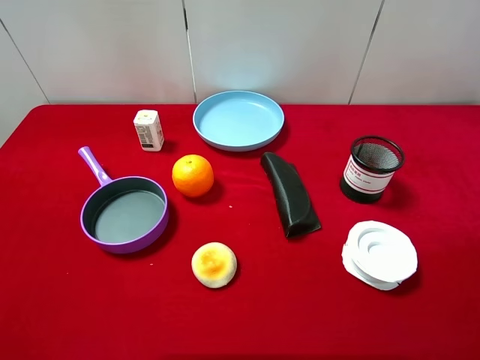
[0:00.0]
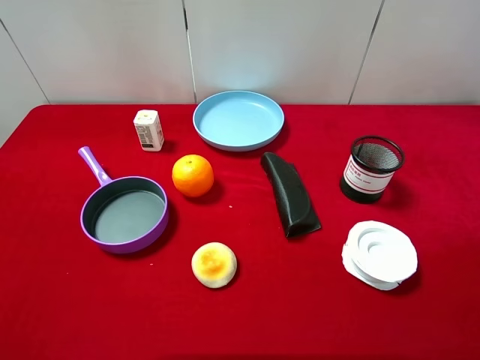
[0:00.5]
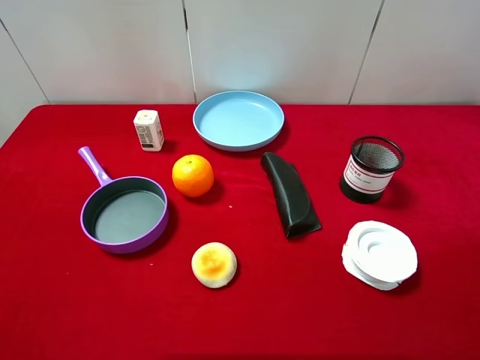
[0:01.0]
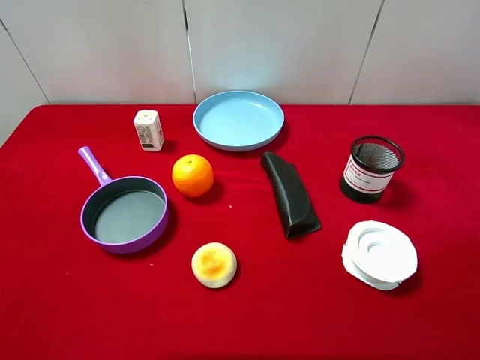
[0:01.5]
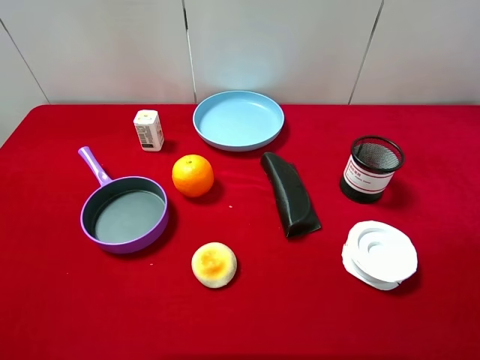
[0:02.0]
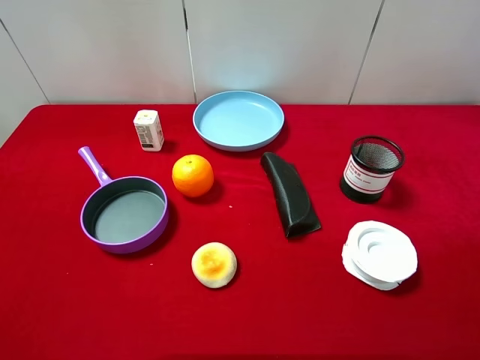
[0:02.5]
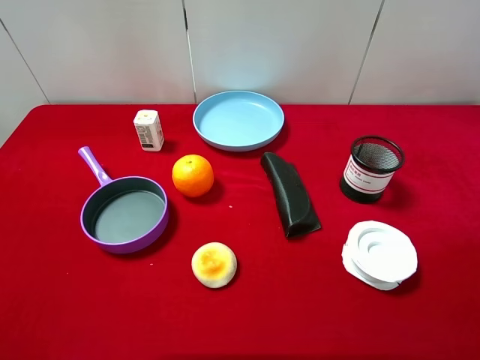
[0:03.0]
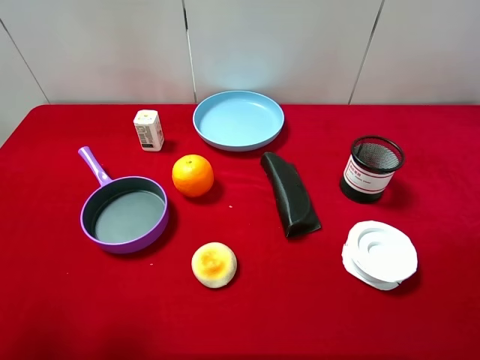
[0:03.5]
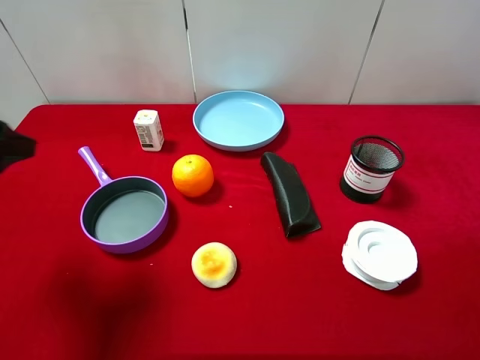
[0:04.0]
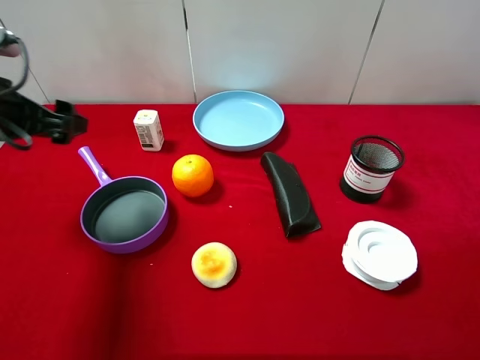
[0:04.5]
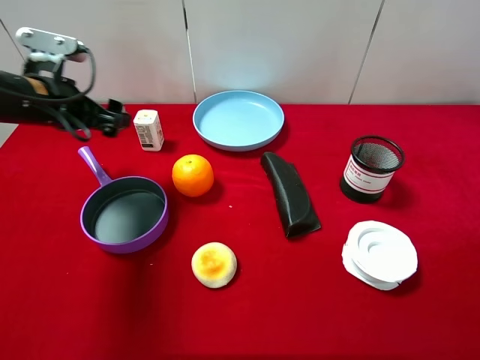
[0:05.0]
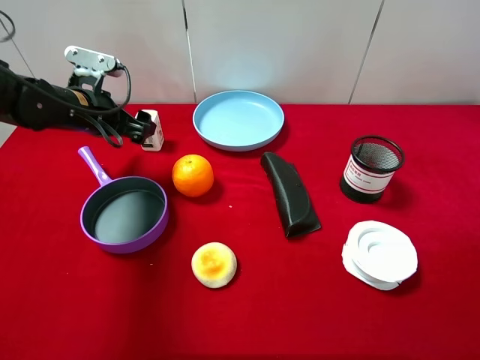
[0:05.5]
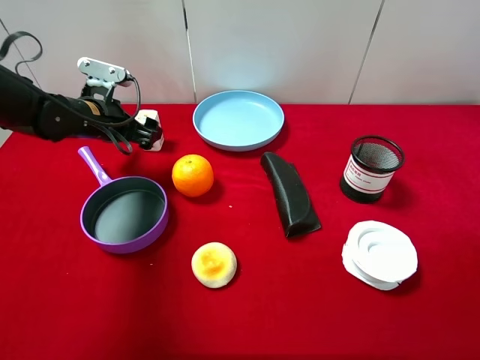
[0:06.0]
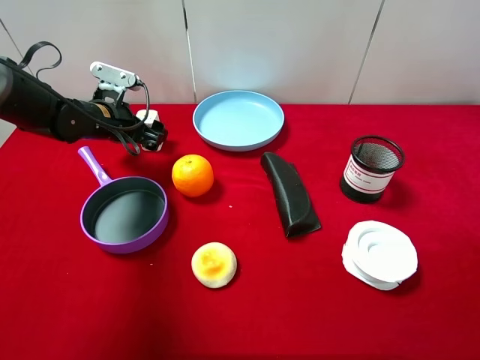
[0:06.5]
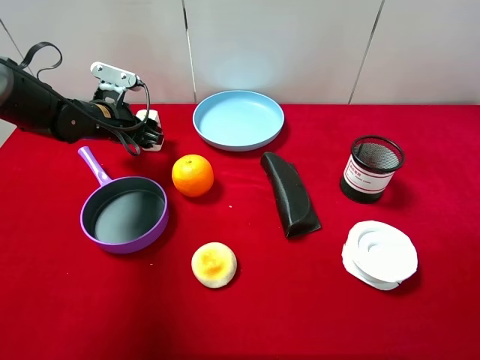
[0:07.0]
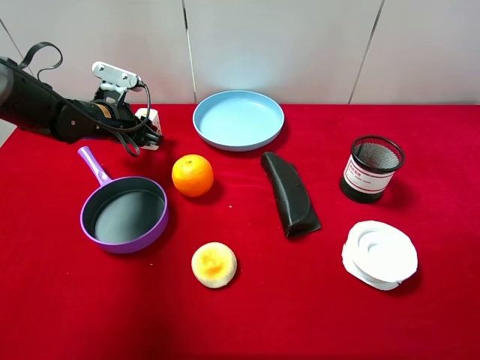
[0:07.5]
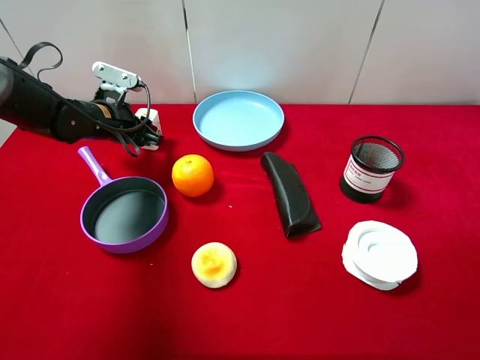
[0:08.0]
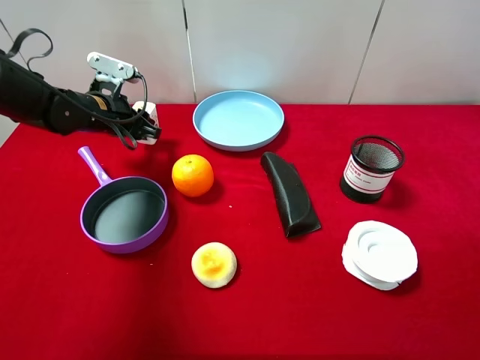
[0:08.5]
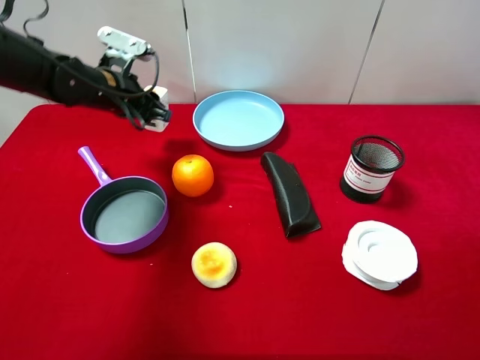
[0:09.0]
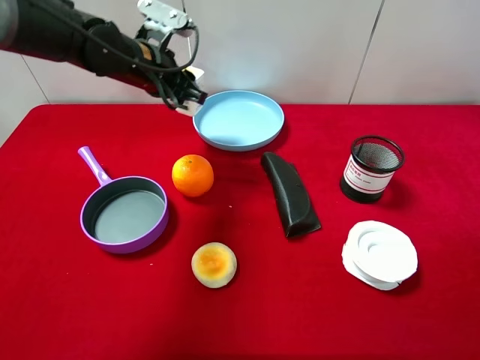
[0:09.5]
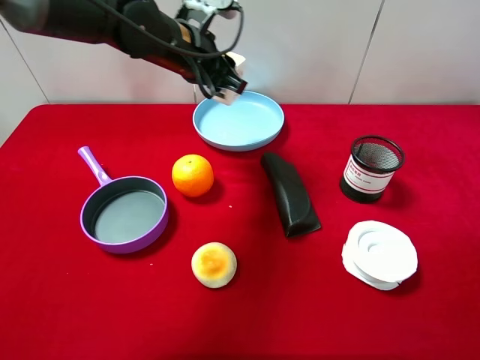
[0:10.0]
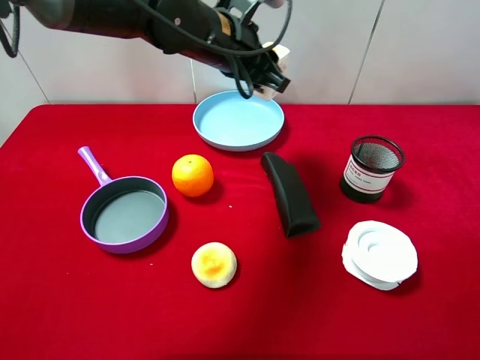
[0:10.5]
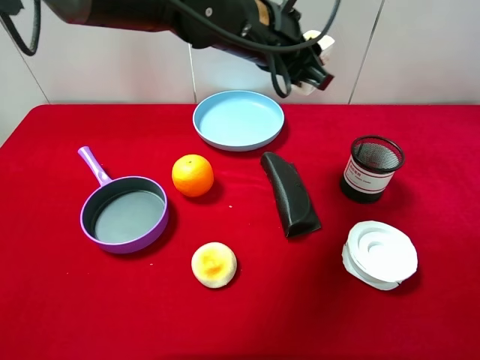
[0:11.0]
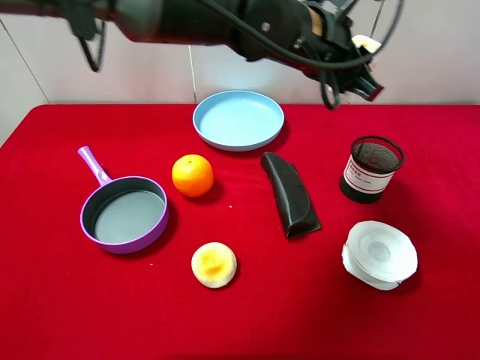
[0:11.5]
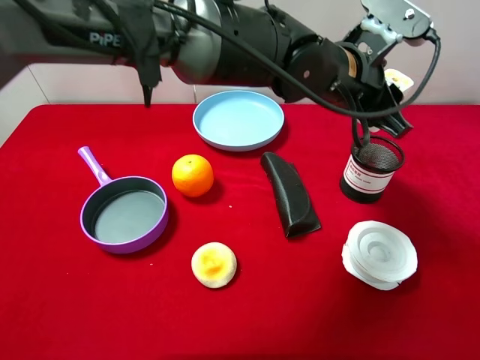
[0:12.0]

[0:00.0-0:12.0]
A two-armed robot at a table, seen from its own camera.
Task of the whole recording: pick up an item with a gripper and place it in a random container on the desktop.
0:02.0 to 0:04.0: The left gripper travels forward by approximately 15 cm.
0:04.0 to 0:06.0: The left gripper is displaced forward and downward by some 25 cm.
0:06.0 to 0:08.0: The left gripper closes its fingers.
0:08.0 to 0:10.0: The left gripper moves to the right and upward, some 20 cm.
0:10.0 to 0:12.0: The left gripper moves to the right and backward, roughly 20 cm.

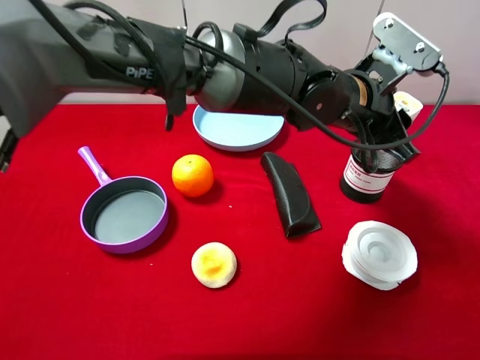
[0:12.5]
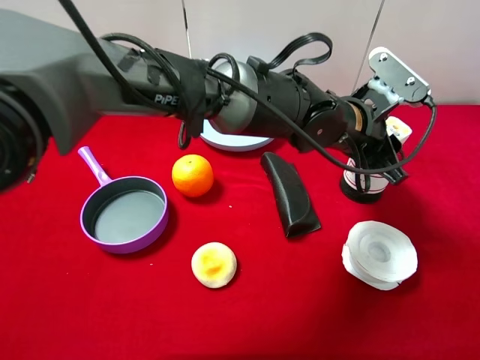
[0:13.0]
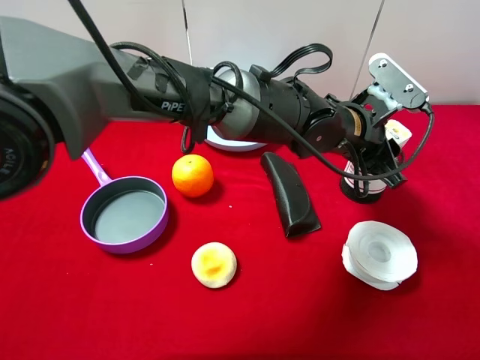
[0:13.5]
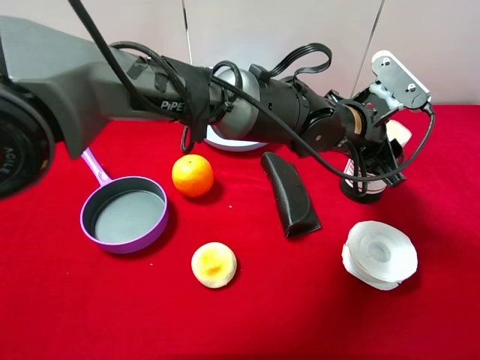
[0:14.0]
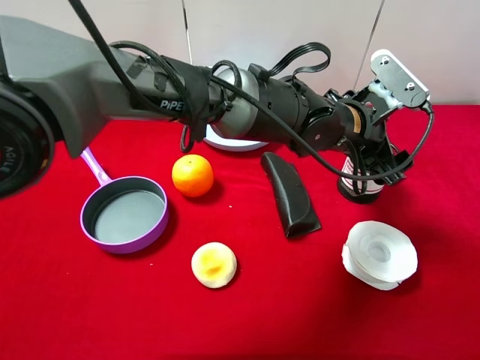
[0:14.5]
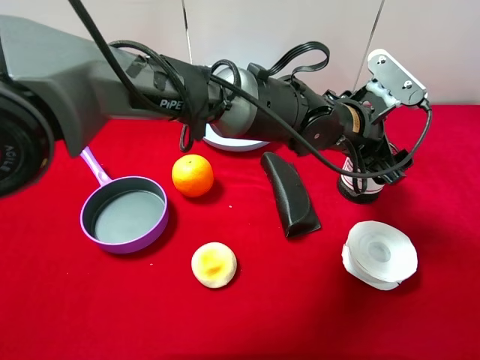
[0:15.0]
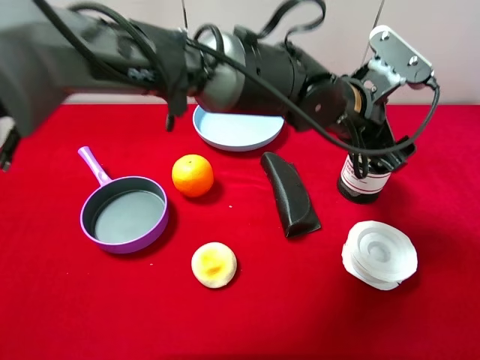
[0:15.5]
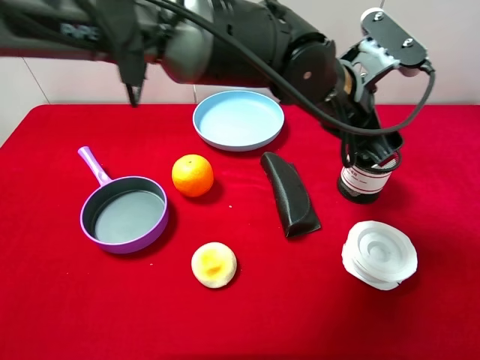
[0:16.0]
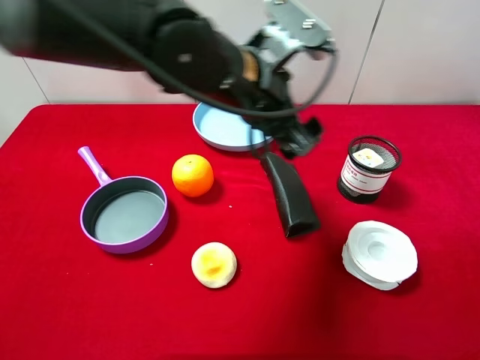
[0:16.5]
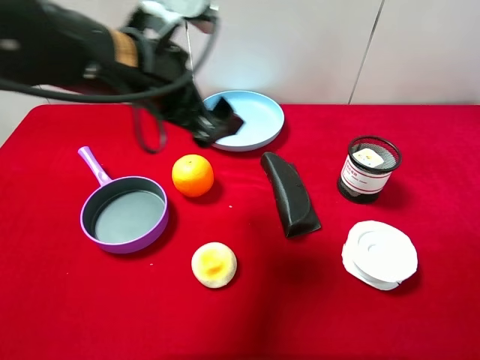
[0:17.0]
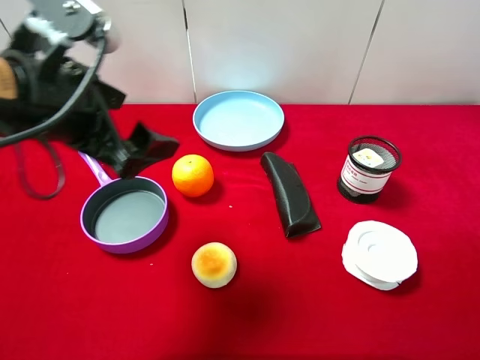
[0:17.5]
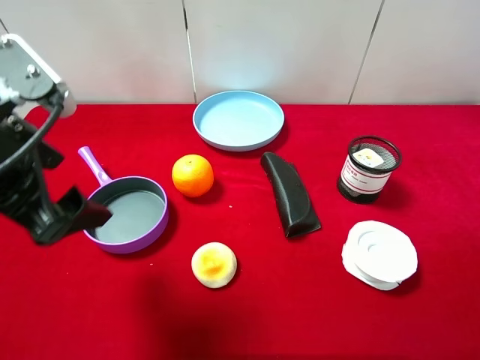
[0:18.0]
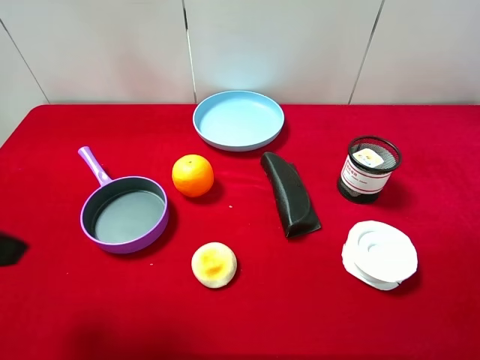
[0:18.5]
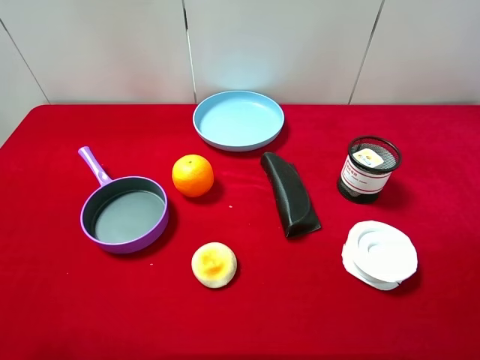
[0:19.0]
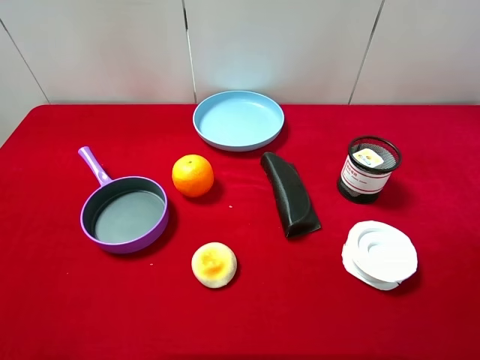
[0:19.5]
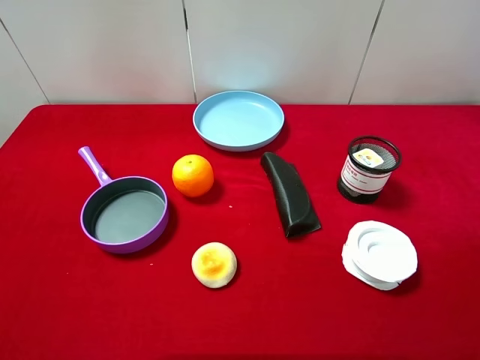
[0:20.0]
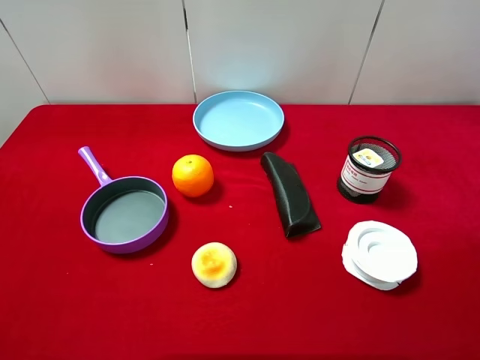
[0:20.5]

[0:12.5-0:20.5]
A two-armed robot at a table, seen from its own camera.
Task of the whole recording: pick up an item with a gripper and place it in a random container on the desktop.
0:12.5 to 0:14.5: The left gripper opens its fingers.
0:14.5 to 0:16.5: The left gripper is displaced to the left and upward by roughly 15 cm.
0:16.5 to 0:18.5: The left gripper travels to the left and backward by about 30 cm.
0:18.5 to 0:20.5: The left gripper goes roughly 15 cm backward and to the left.

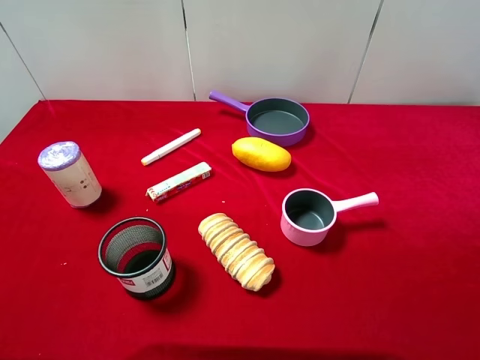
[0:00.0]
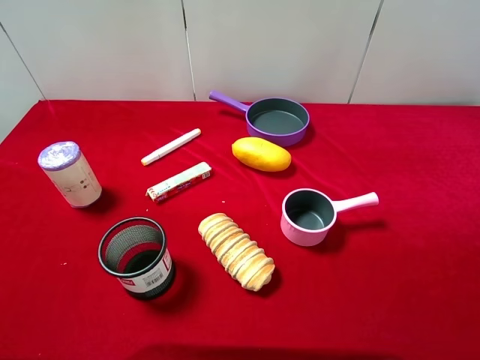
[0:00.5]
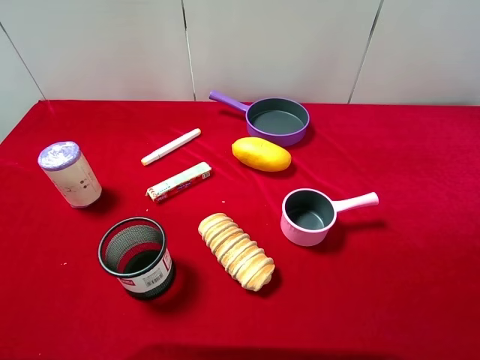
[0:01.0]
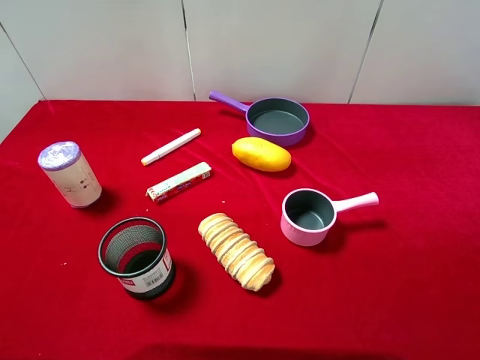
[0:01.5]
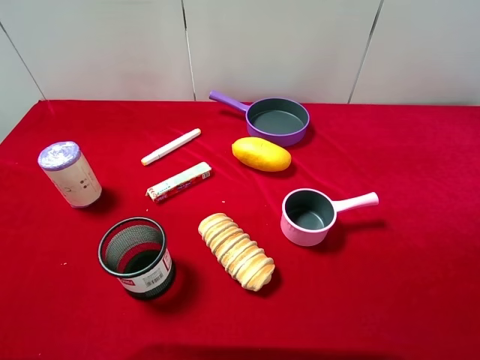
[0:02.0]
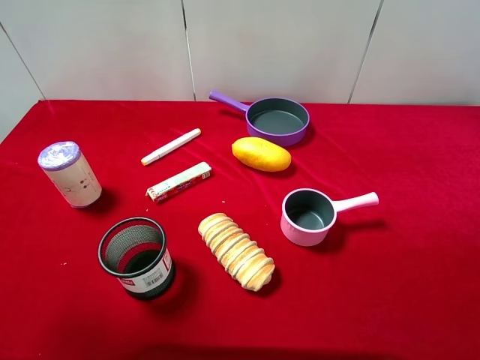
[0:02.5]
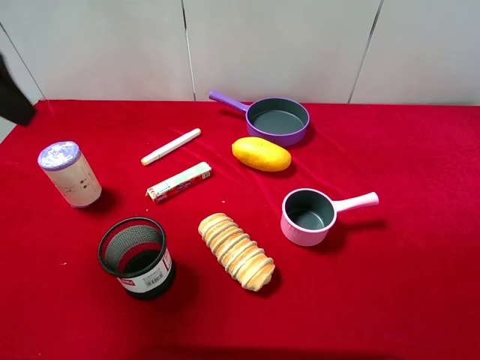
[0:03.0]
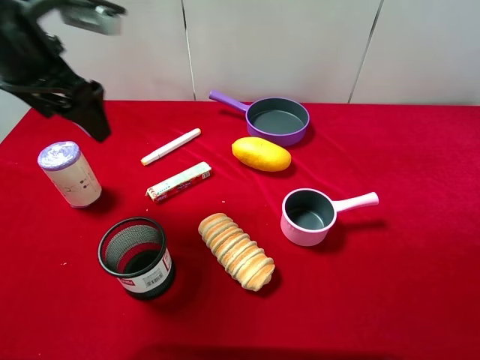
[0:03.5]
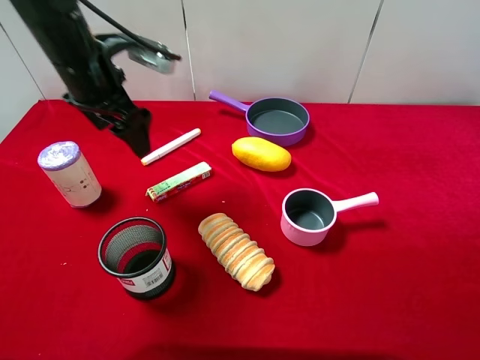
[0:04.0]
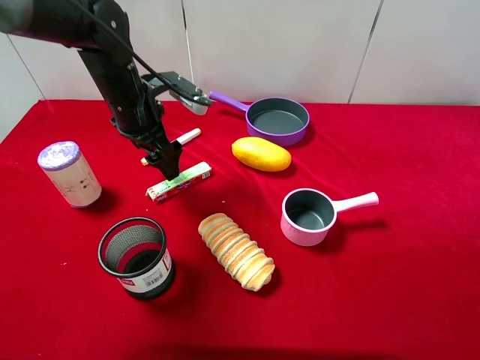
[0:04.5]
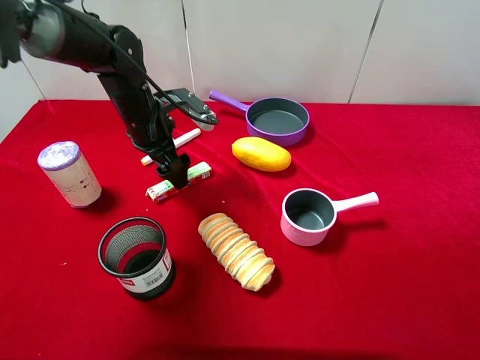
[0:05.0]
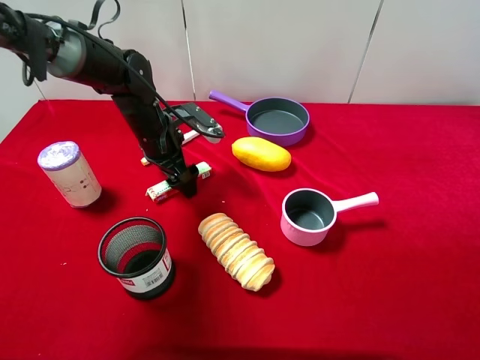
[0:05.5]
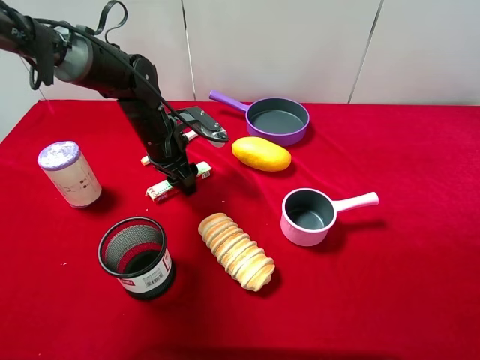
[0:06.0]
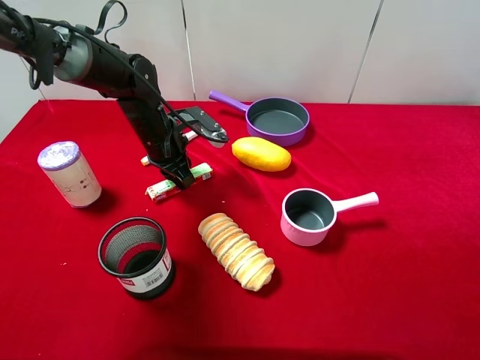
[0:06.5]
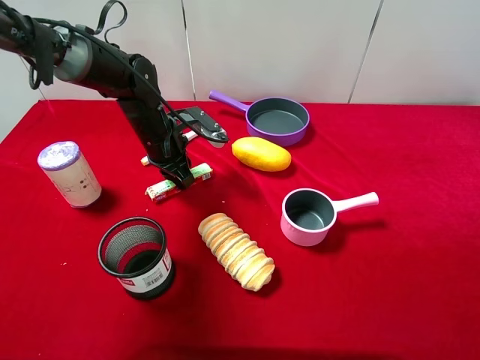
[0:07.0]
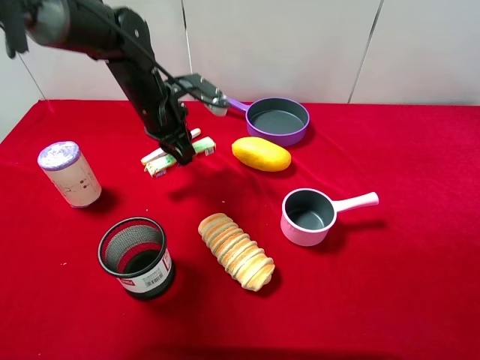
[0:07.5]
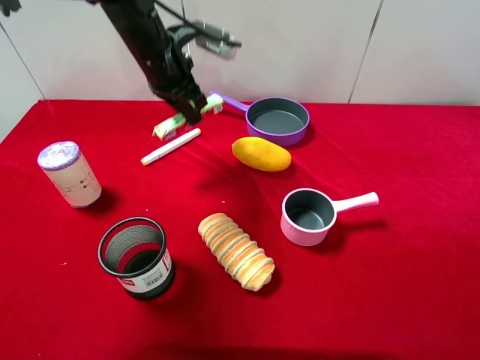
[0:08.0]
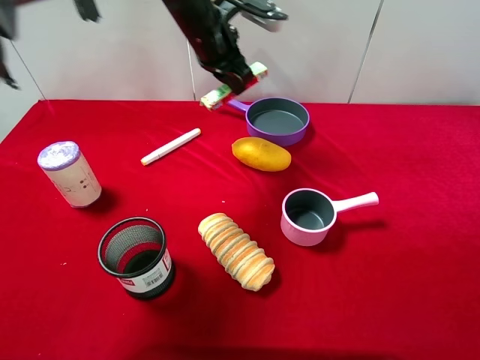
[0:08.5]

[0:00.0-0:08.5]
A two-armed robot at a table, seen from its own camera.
Task of the whole recording: pick up an item with a gripper and place it in a random container on the desktop.
0:02.0 to 0:04.0: The left gripper goes roughly 35 cm forward.
0:04.0 to 0:06.5: The left gripper heads downward and to the right, covering roughly 15 cm, and closes up.
0:06.5 to 0:08.5: The left gripper goes some 15 cm upward and forward.
